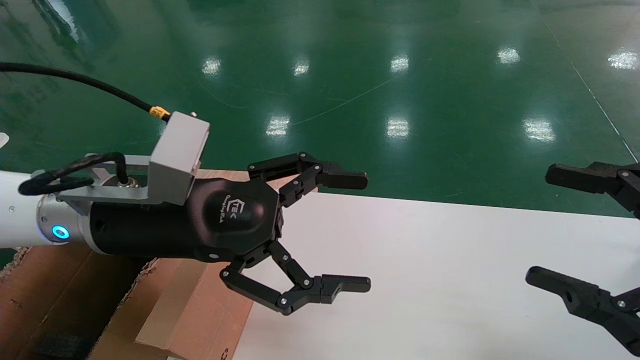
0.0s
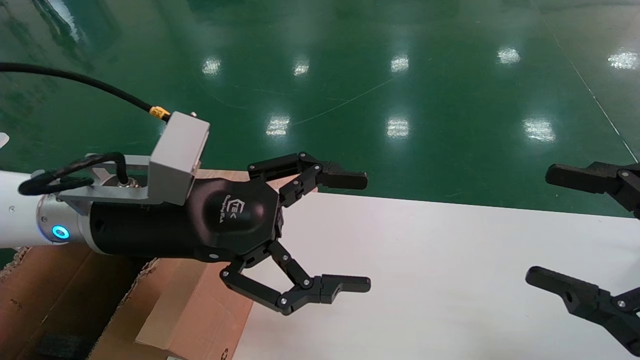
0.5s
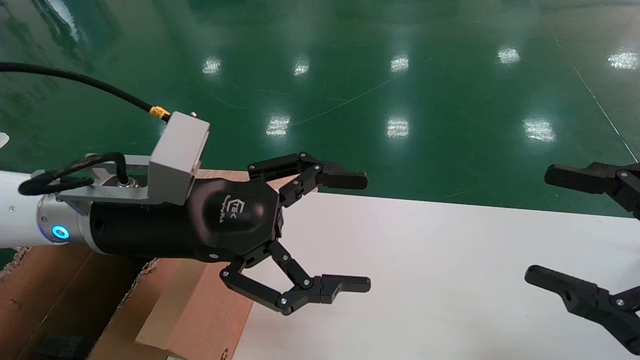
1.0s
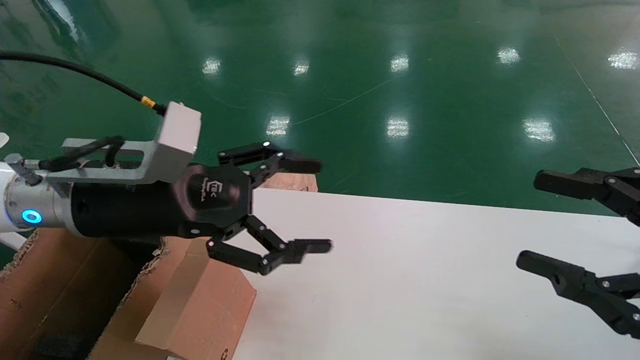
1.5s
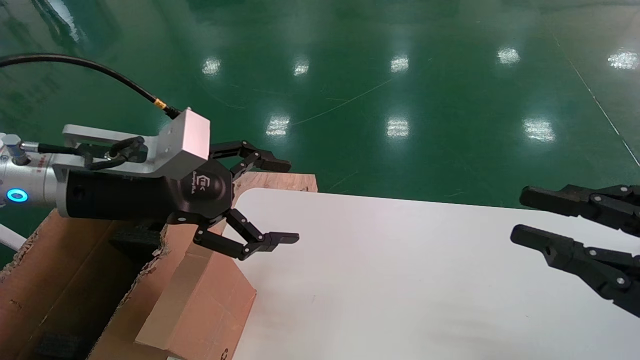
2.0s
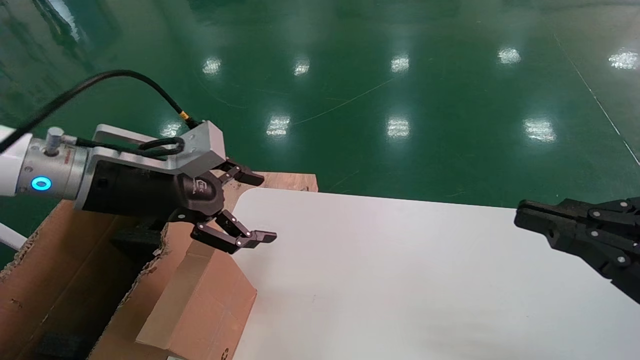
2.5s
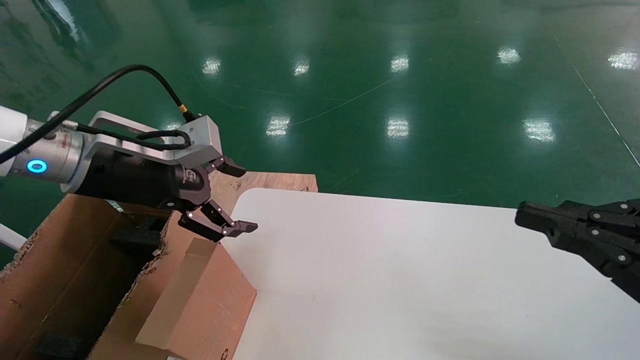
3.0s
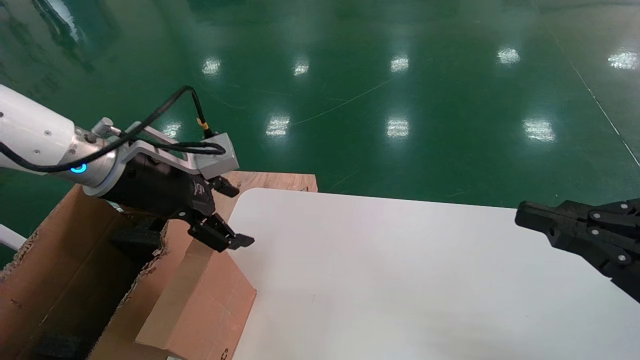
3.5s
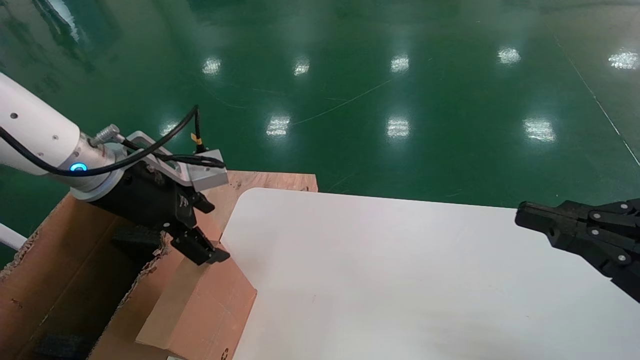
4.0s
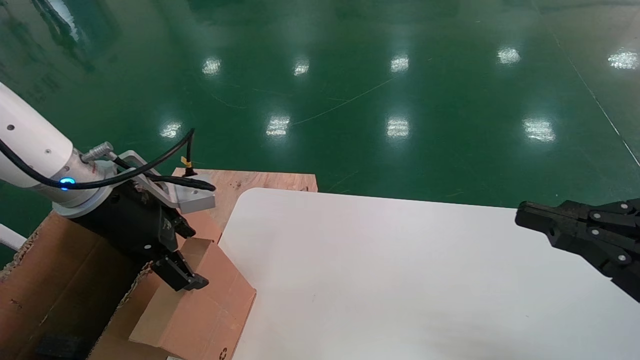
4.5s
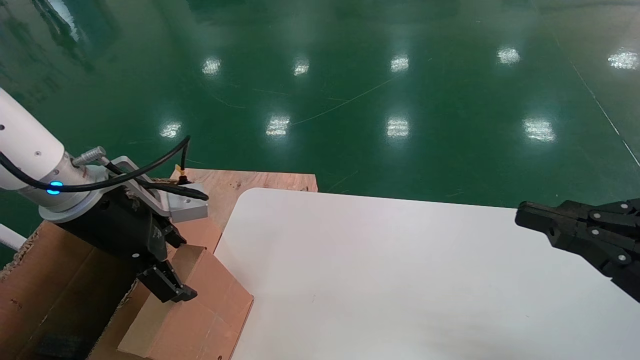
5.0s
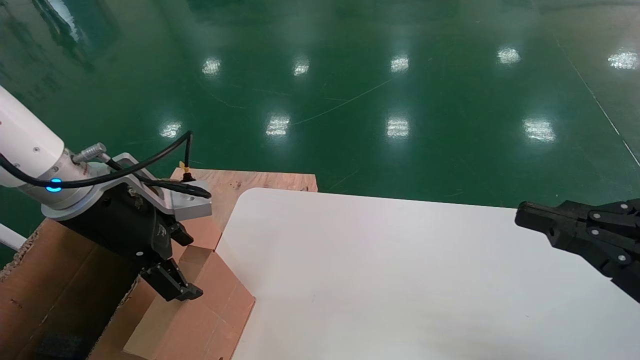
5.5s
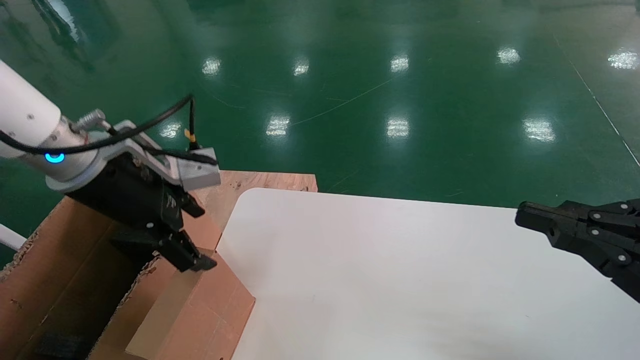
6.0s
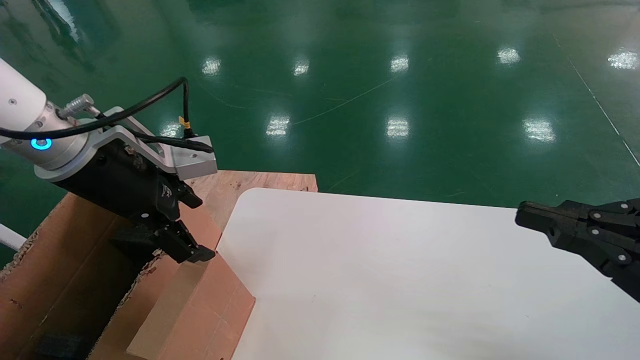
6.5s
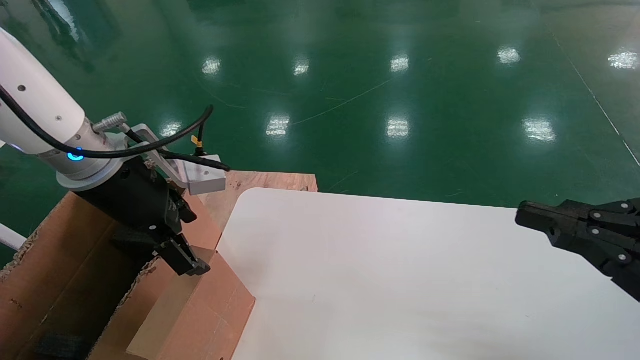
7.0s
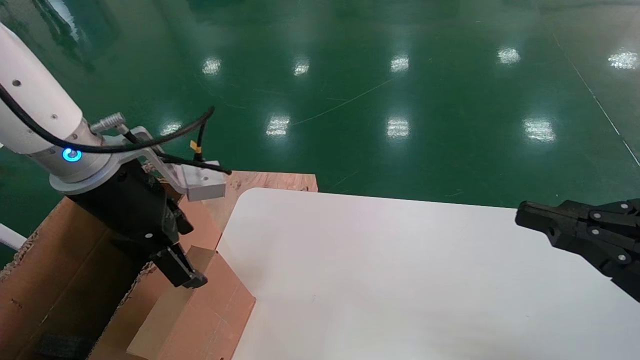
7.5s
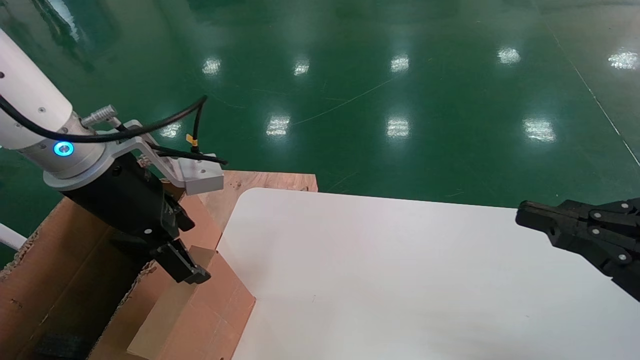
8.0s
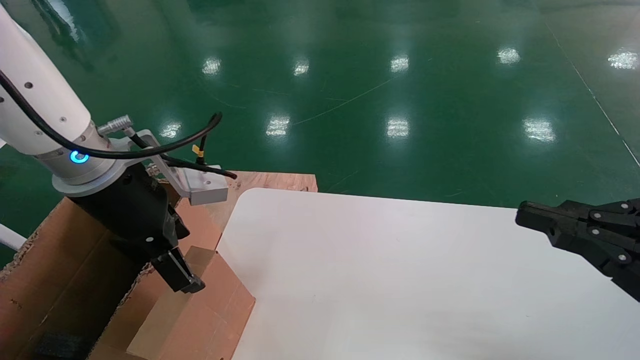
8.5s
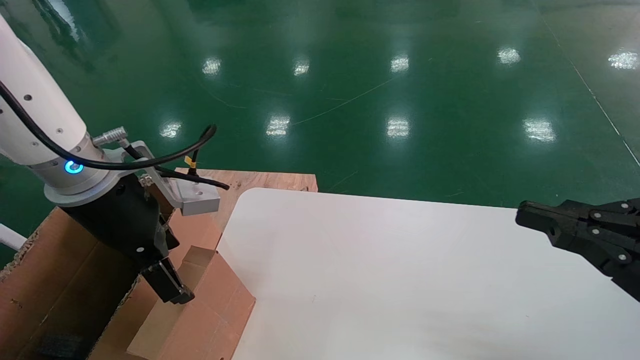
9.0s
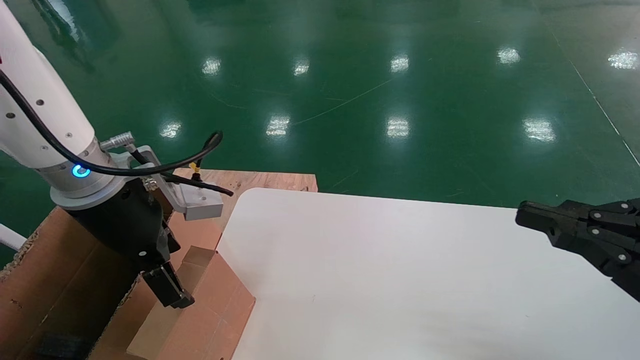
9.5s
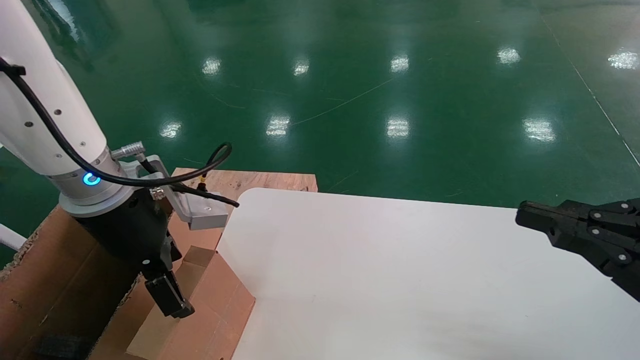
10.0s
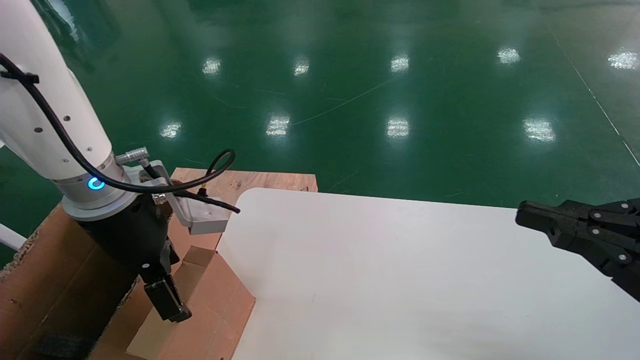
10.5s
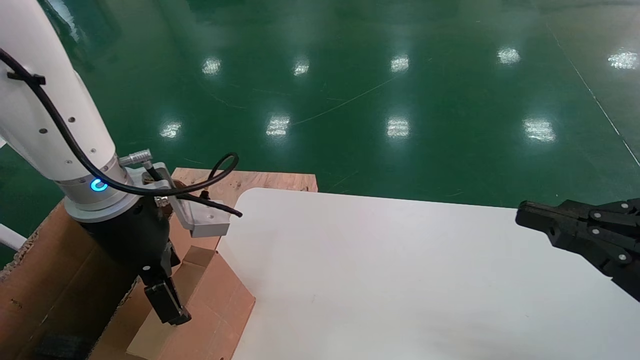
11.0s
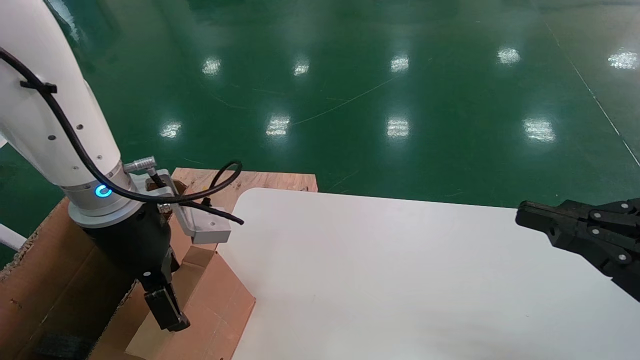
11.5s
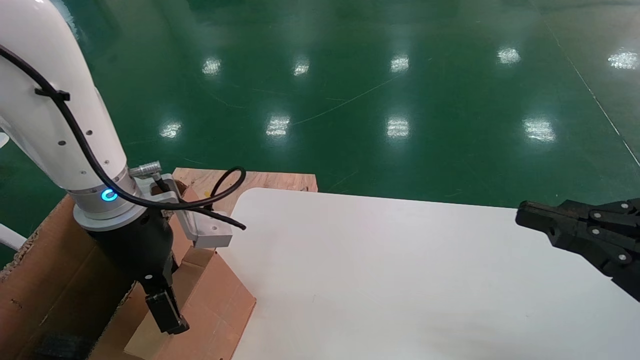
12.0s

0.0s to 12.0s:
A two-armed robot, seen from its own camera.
Task of the whole recording: place the small box on the table into the large box on the left.
0.0s to 2.0s: The right gripper closes up. The left gripper is displaced to the left by approximately 5 cm.
2.0s to 4.0s: The right gripper closes up; the left gripper changes place by some 5 cm.
4.0s to 8.0s: There are only small adjustments of the grippers.
8.0s to 12.0s: The grippers move only a little.

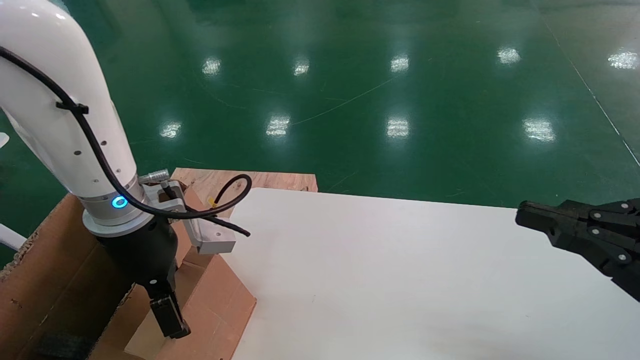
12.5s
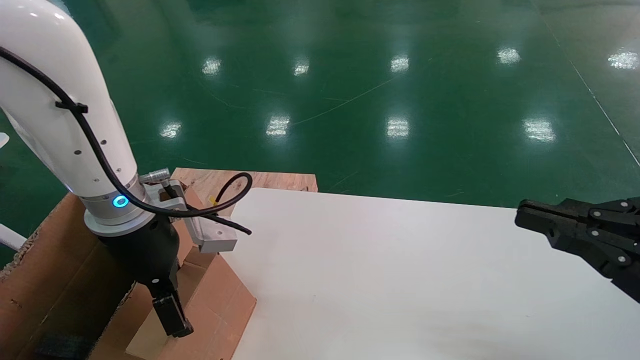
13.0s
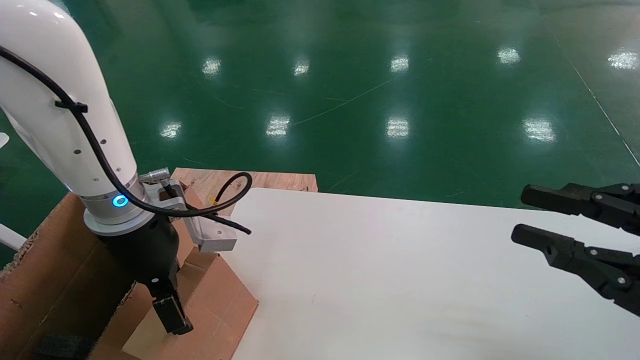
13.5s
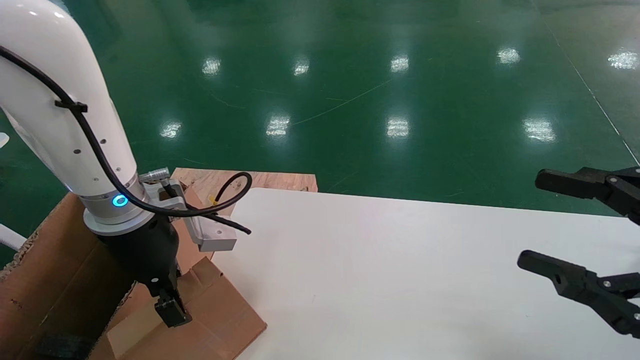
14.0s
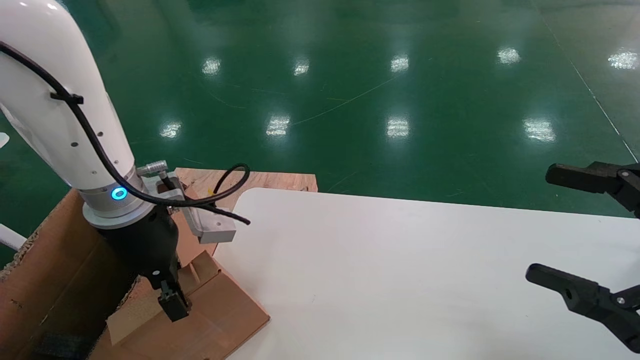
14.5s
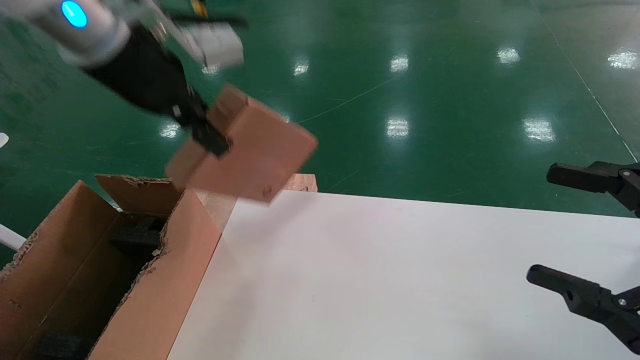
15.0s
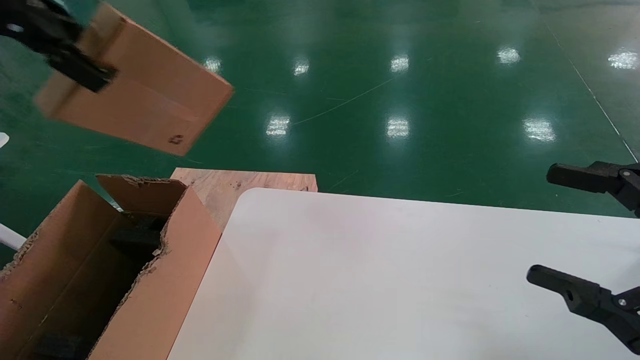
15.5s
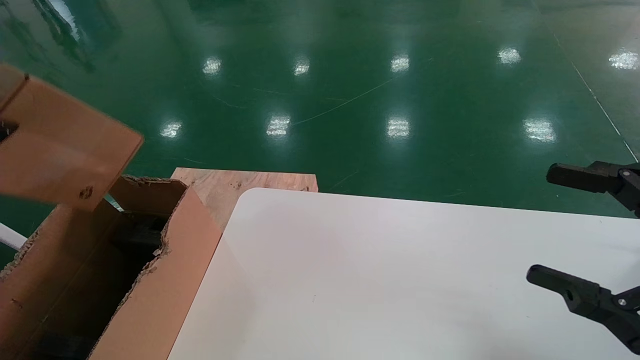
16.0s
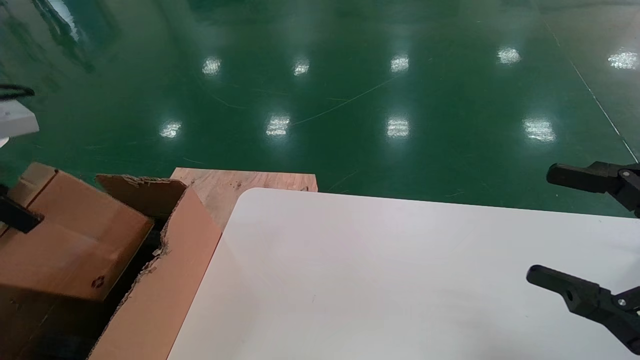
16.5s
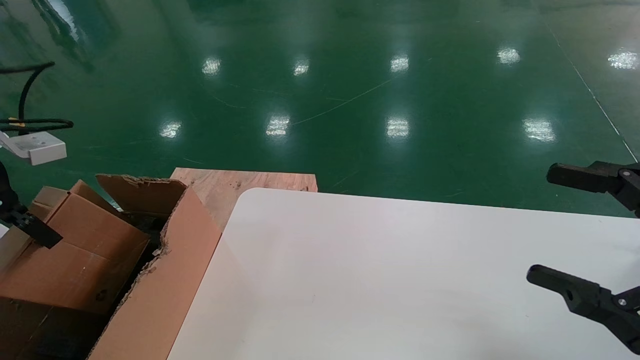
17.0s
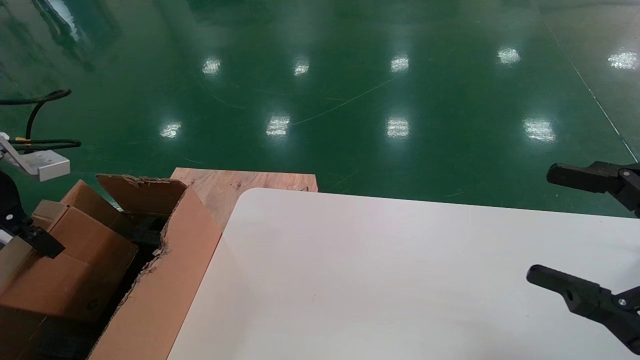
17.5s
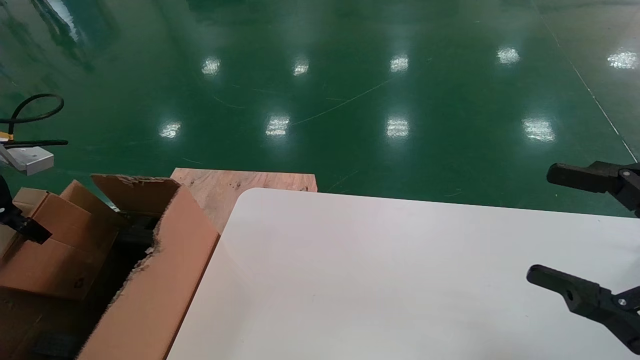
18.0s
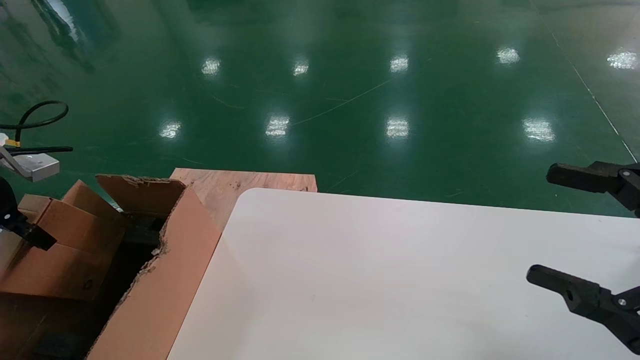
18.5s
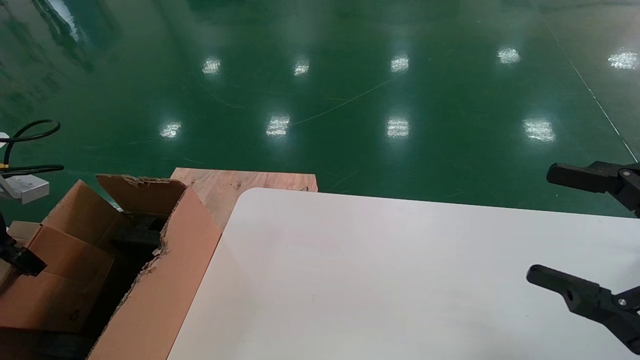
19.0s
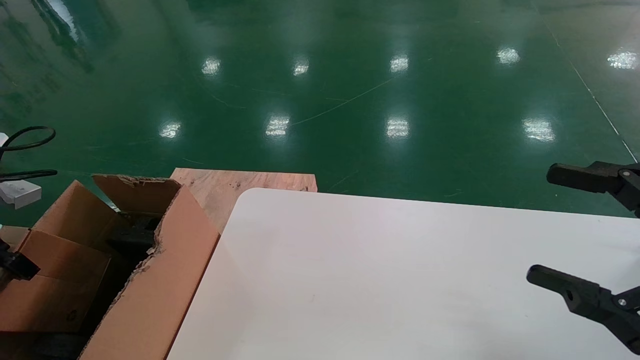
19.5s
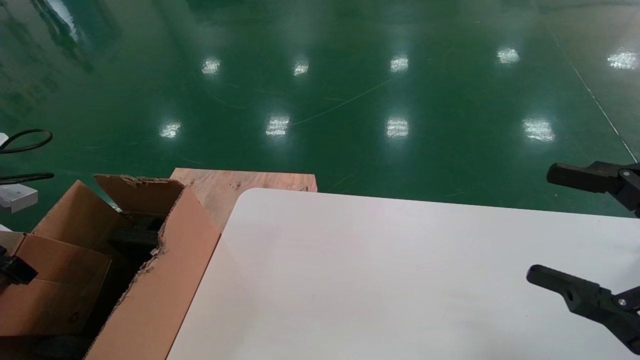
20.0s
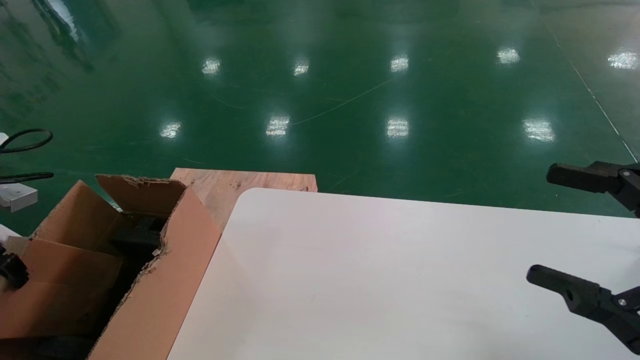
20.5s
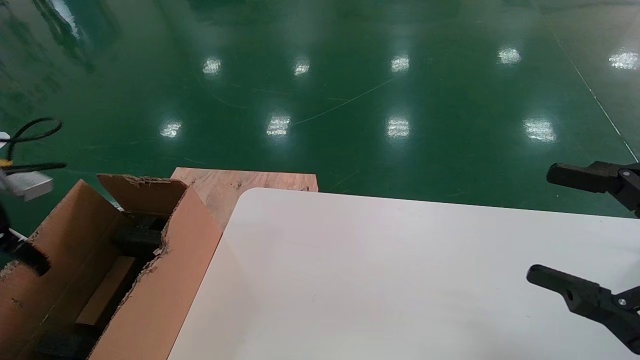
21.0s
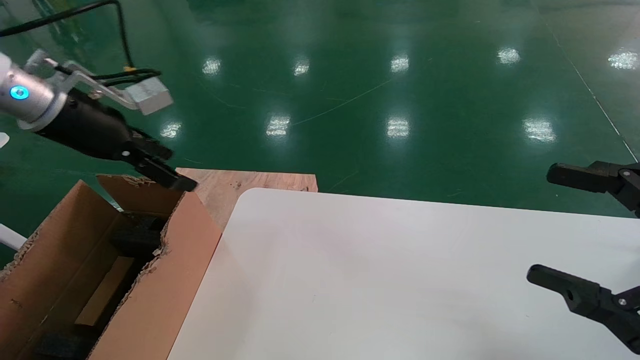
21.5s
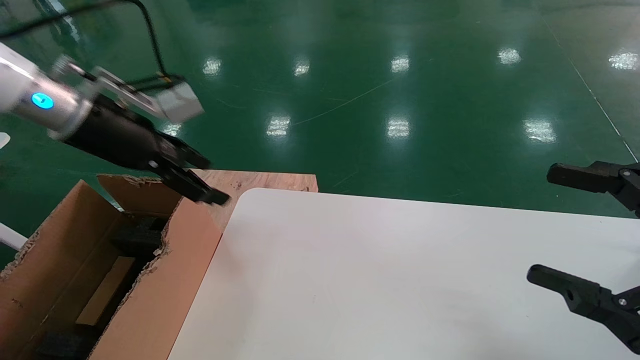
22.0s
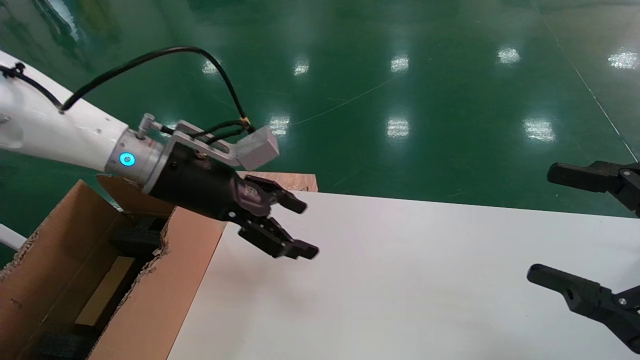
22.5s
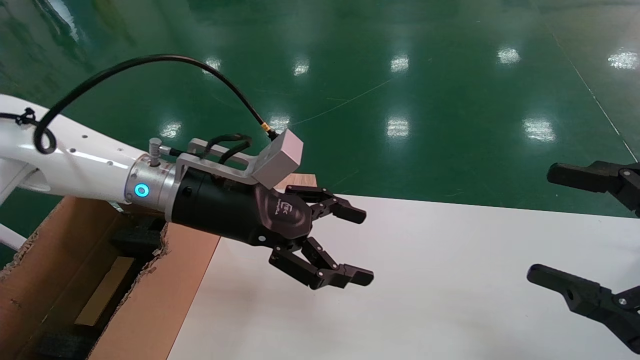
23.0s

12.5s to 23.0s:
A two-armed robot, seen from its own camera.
Task of the whole recording: place the small box on the table into the large box on the left.
Step, 14.5s to 21.0s: Place the mouse and the power cord paper box into the container.
12.5s to 14.5s: The left gripper closes its fingers; the right gripper opens up.
14.5s to 16.5s: The left gripper moves to the left and upward, approximately 25 cm.
16.5s to 19.0s: The left gripper shifts about 15 cm downward and to the left.
19.0s to 21.0s: The left gripper opens up.
21.0s to 23.0s: The left gripper heads to the right, covering approximately 35 cm.
